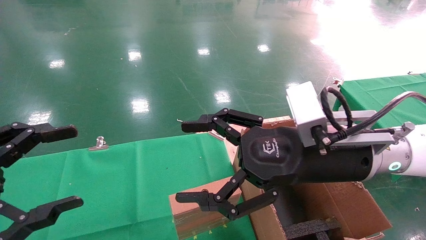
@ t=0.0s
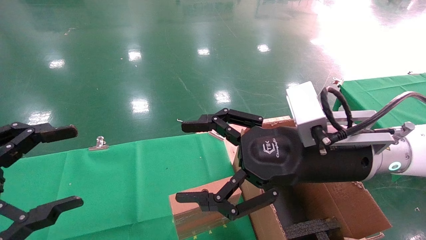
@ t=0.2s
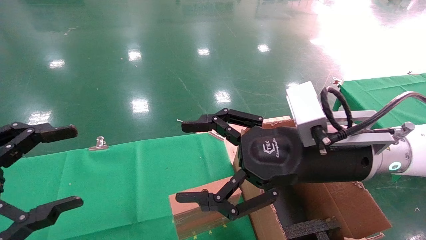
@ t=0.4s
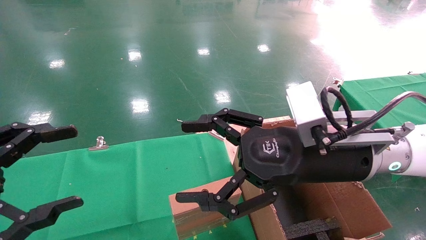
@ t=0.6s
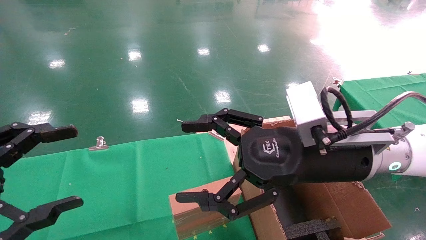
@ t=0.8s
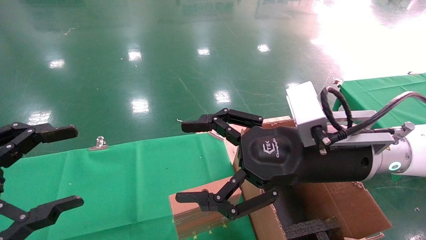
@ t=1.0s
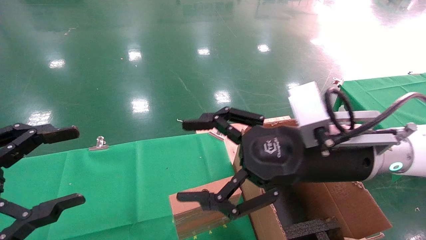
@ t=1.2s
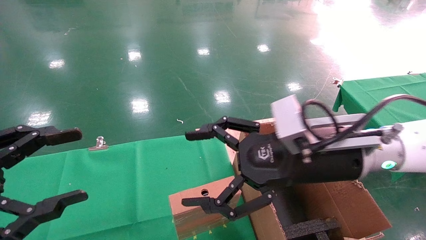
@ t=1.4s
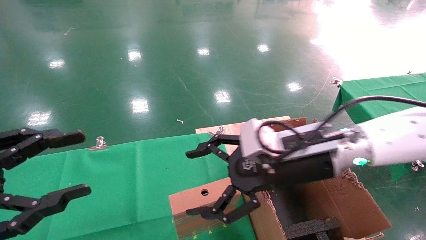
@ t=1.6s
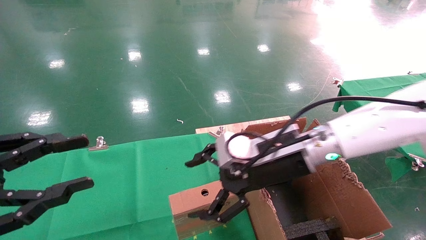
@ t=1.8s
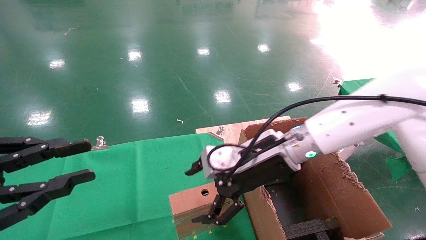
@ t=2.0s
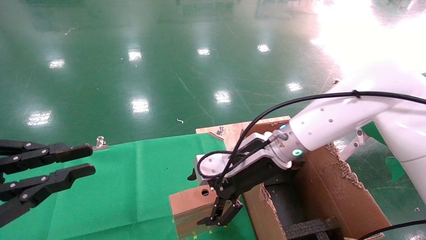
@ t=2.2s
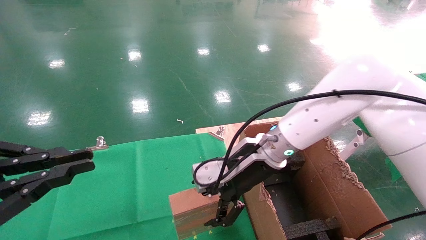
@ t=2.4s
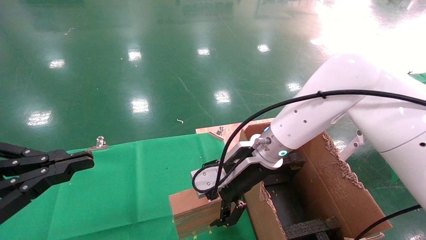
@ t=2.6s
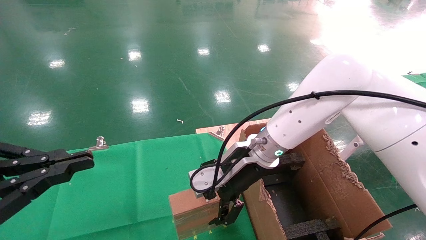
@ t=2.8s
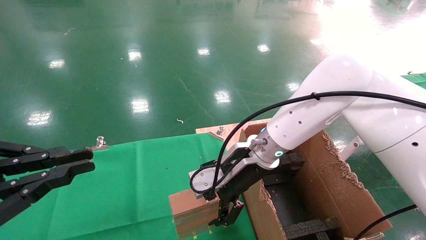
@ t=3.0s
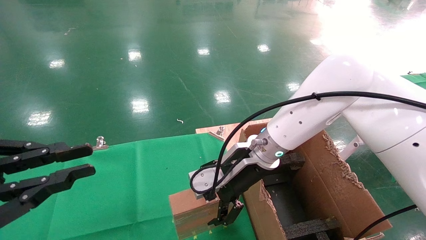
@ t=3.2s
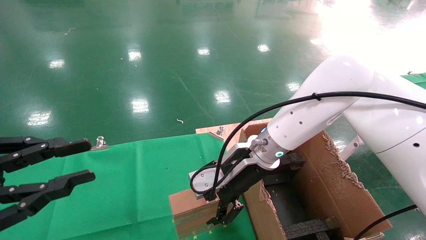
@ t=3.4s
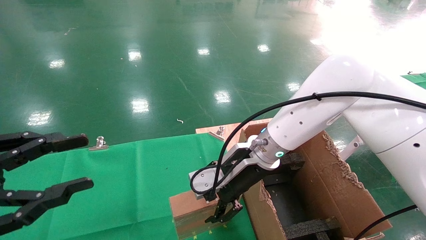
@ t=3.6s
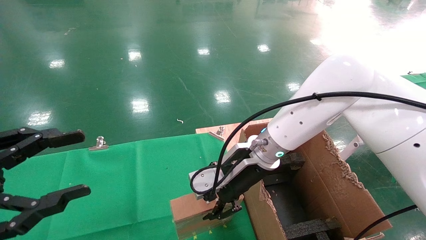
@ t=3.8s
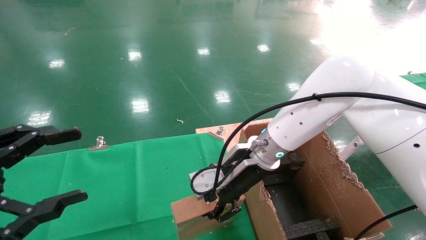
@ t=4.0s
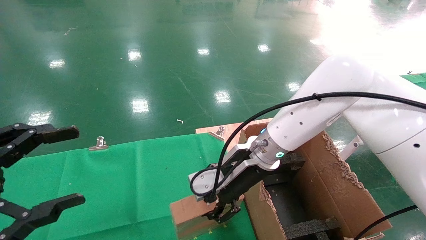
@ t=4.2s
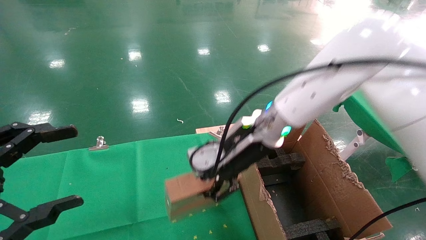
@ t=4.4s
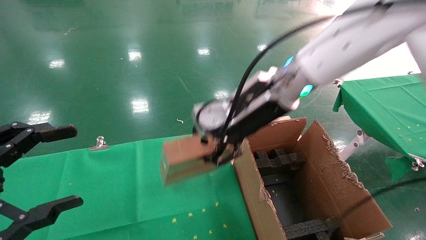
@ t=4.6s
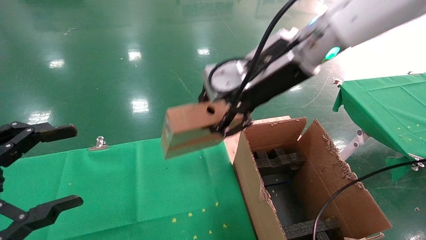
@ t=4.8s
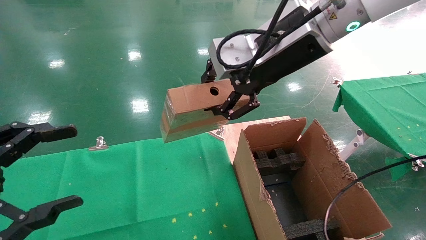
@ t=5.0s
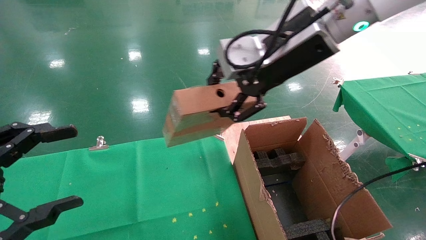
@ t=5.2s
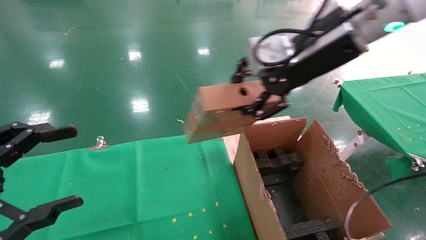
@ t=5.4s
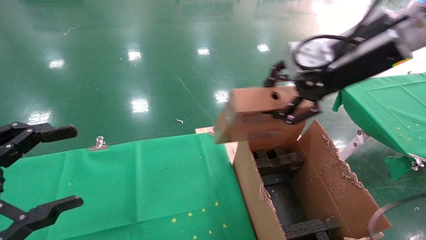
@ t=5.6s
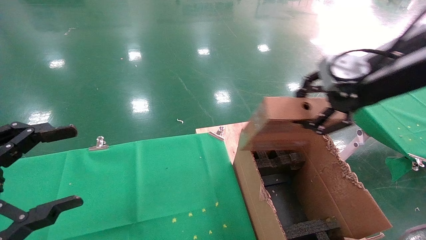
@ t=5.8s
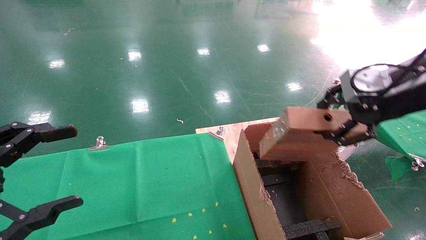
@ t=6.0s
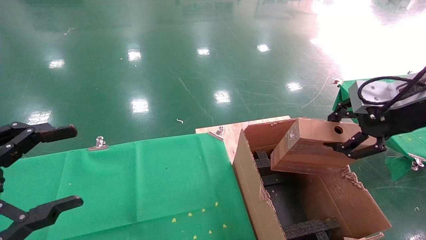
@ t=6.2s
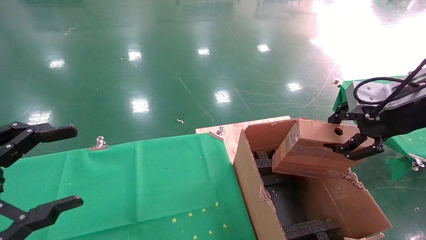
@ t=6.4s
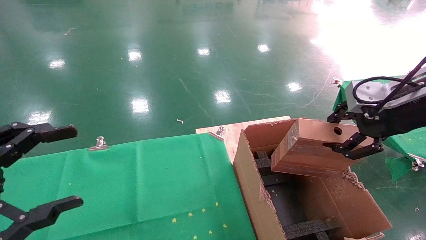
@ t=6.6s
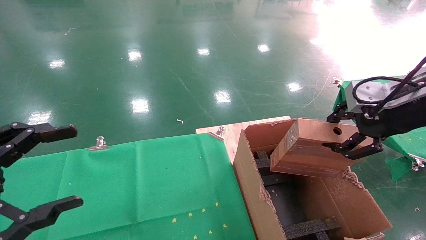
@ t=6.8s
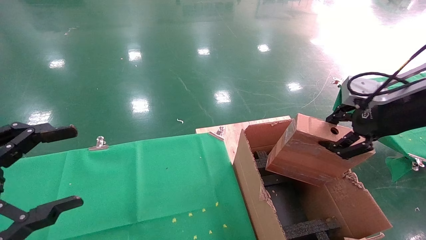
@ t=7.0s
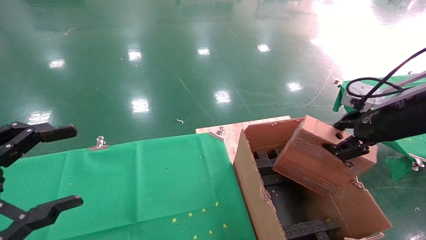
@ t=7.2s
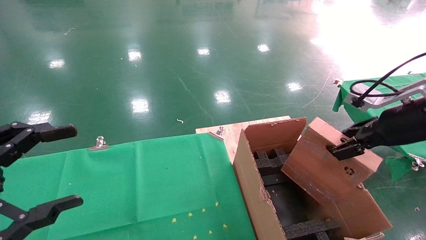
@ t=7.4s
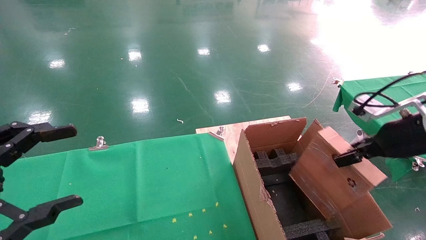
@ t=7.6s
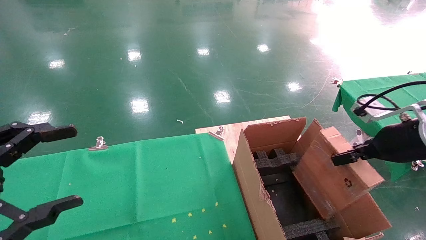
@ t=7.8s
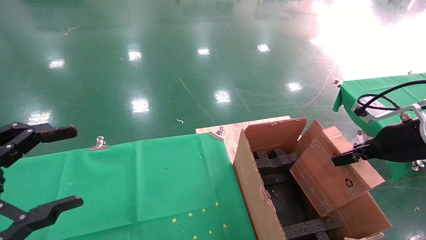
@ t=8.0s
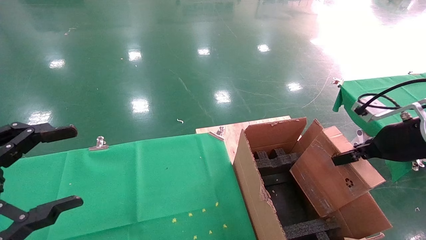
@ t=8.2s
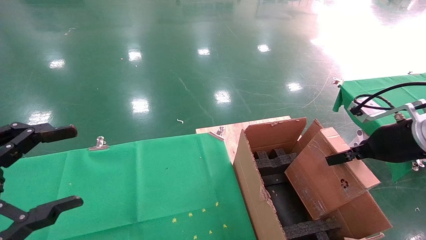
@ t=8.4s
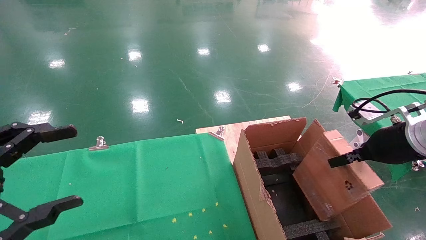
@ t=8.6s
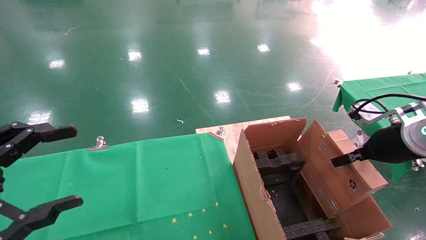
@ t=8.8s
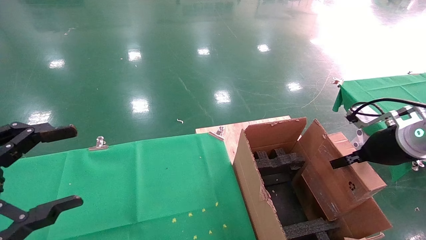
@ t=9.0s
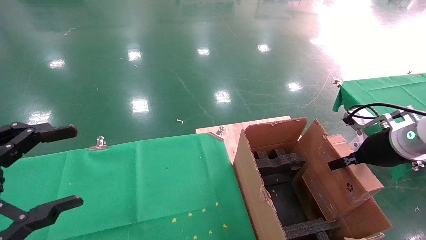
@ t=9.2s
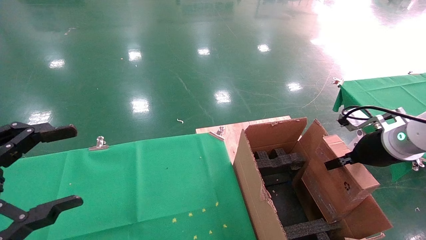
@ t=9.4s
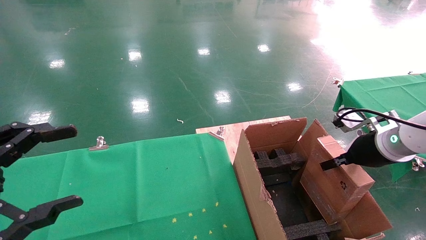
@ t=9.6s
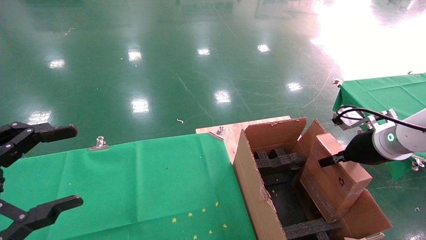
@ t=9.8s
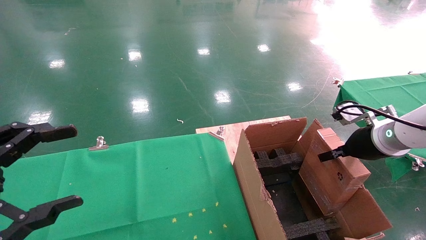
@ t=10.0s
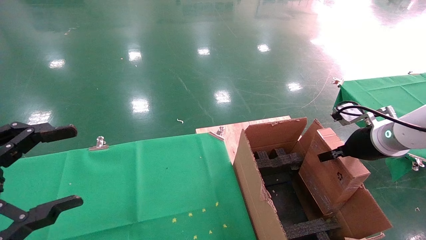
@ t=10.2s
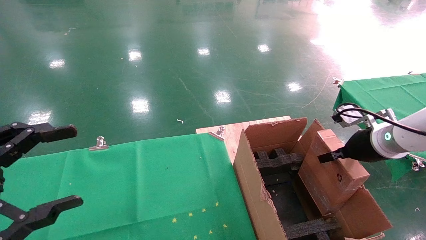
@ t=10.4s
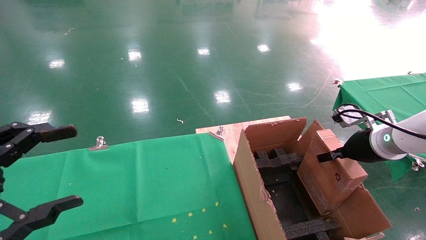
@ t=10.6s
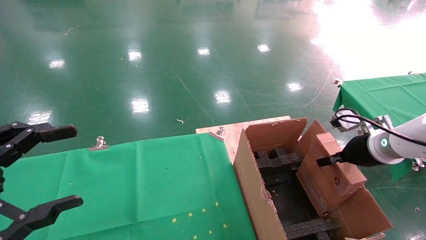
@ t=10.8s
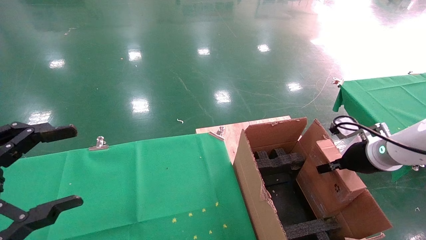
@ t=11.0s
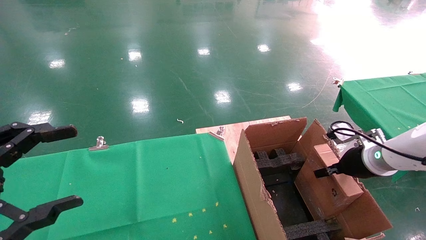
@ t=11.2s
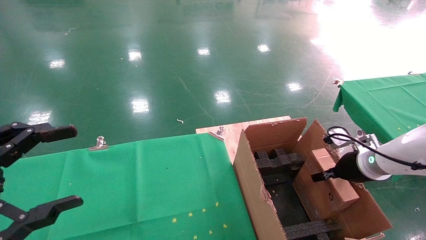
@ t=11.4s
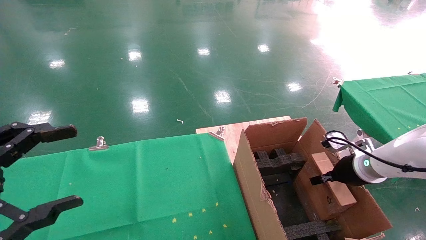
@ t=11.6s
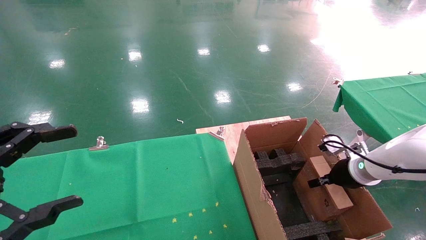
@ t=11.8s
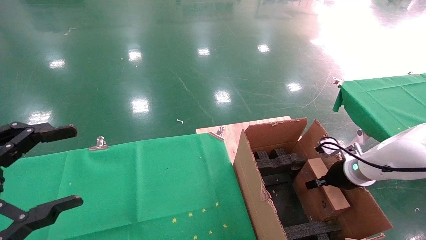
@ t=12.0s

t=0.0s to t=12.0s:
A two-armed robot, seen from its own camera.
Task of the whole recording: using a robotic arm to pick up a cardboard box and palace it the carton.
Step, t=1.8s to t=4.8s: Pick up the mouse and the power cord paper box.
t=0.0s to t=1.6s: The right gripper moves approximately 5 cm.
t=1.6s to t=3.0s: The right gripper goes roughly 10 cm forward and to the left. Meanwhile the left gripper closes its fingers.
t=3.0s to t=4.4s: The right gripper goes about 5 cm upward, and closes. Meanwhile the left gripper opens.
t=4.4s to t=6.0s: The right gripper goes some 25 cm to the right, backward and upward.
t=6.0s to t=7.6s: The right gripper travels downward and to the right by some 10 cm.
t=7.6s to t=9.0s: The grippers stay close to where they were, moving slightly.
t=9.0s to t=10.4s: There are only small adjustments of the grippers.
t=10.4s to t=12.0s: The right gripper goes approximately 10 cm downward.

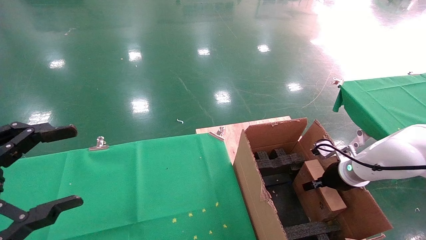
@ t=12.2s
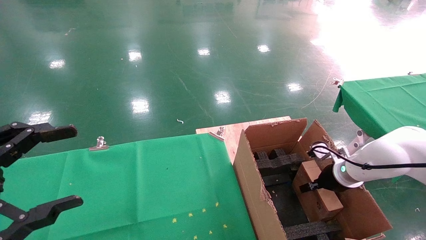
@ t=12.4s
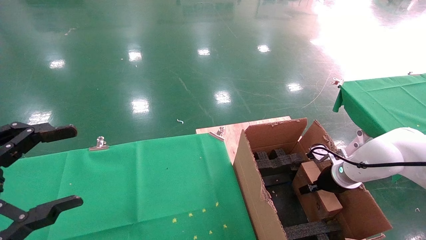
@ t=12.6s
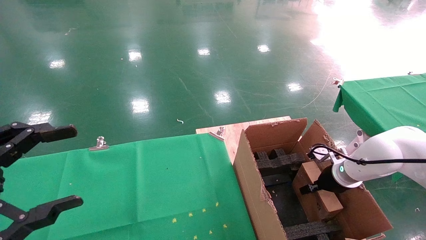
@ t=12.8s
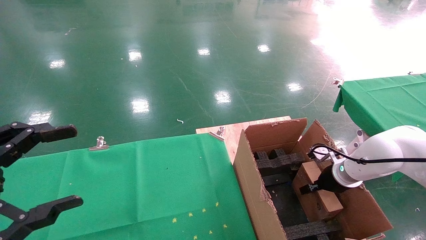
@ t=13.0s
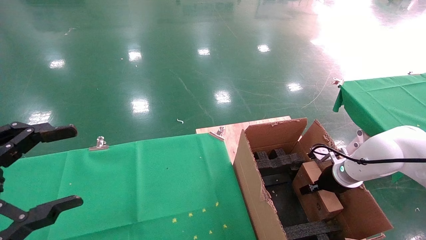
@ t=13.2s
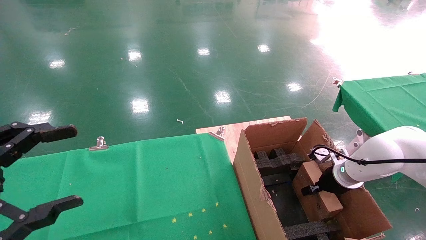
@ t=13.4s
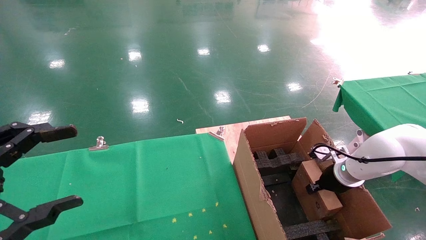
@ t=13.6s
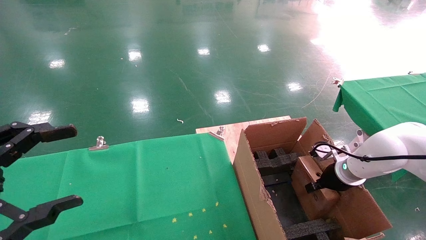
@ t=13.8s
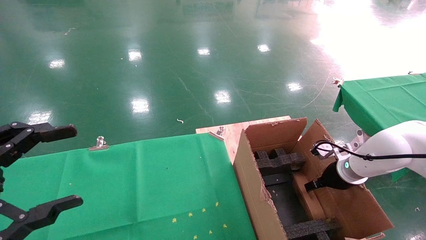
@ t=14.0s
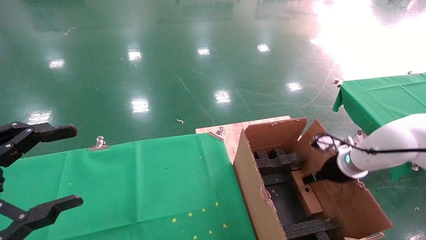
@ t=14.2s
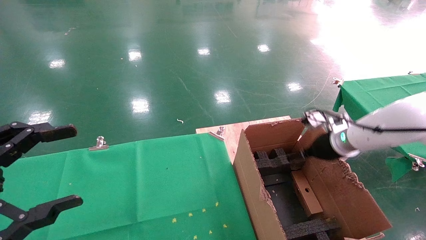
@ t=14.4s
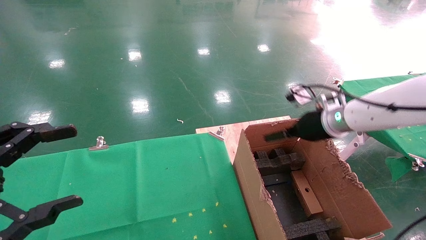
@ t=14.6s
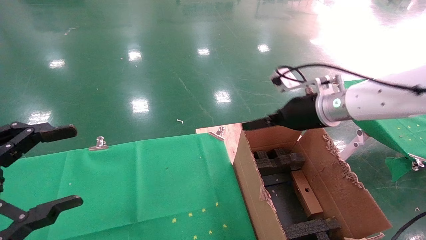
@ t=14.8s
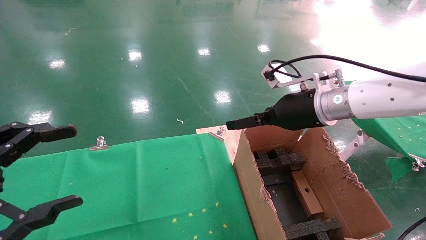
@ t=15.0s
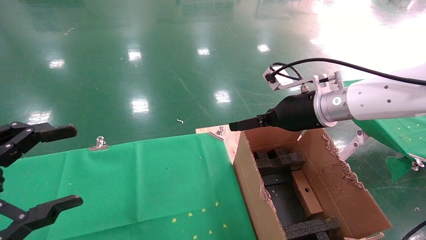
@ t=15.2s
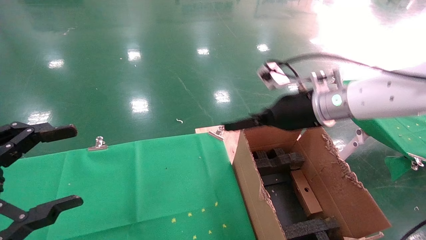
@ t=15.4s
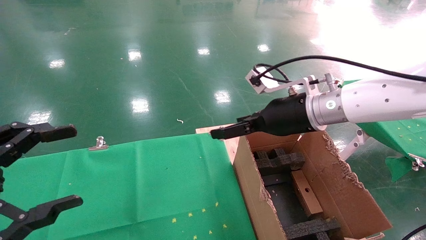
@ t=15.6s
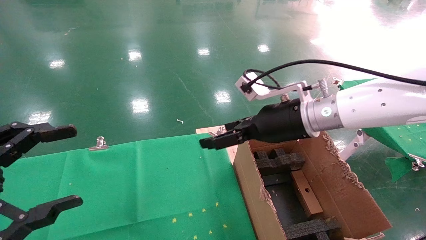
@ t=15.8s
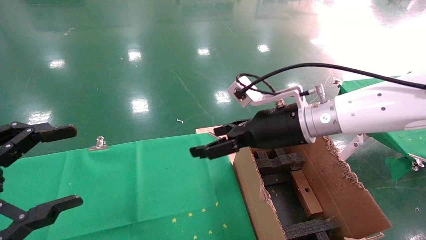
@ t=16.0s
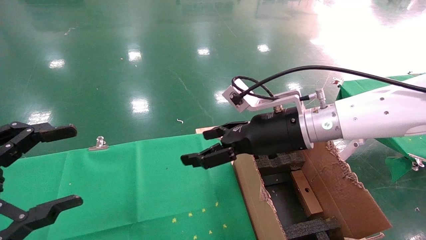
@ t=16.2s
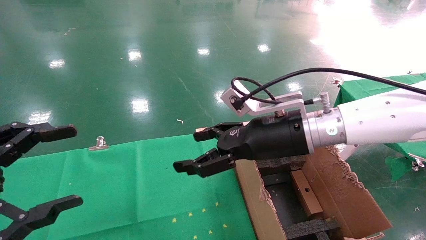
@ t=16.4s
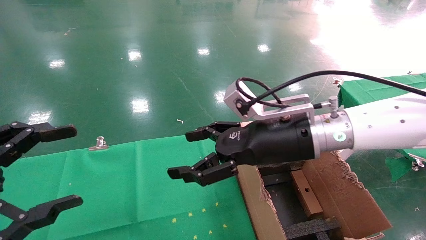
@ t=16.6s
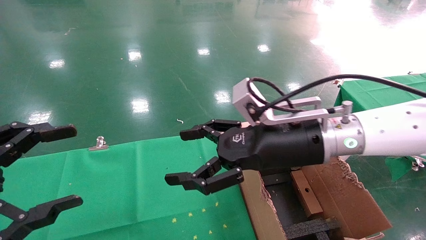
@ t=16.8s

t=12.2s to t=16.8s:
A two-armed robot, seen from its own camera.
Task of the whole recording: using a robotic arm to pick up a cardboard box and palace it the carton.
Step, t=12.2s to t=14.2s: Place the mouse and the power cord paper box into the container.
t=12.2s to t=13.8s: The right gripper opens its fingers.
t=13.8s to t=15.2s: The right gripper is displaced upward and to the left by some 25 cm, and opens.
t=15.2s to t=16.8s: The right gripper heads backward and to the left, covering about 10 cm.
